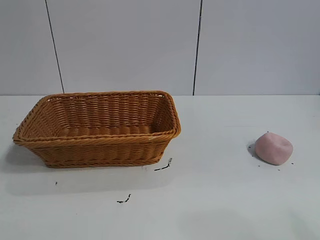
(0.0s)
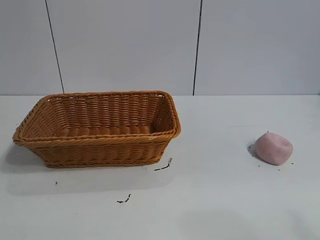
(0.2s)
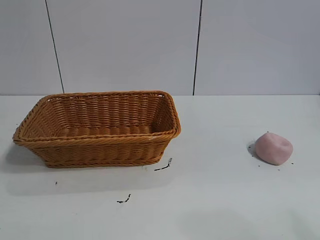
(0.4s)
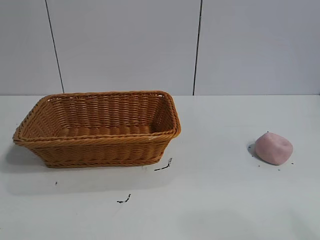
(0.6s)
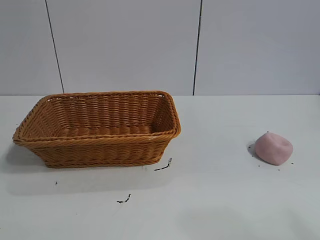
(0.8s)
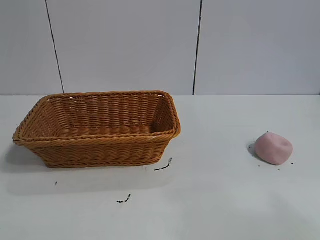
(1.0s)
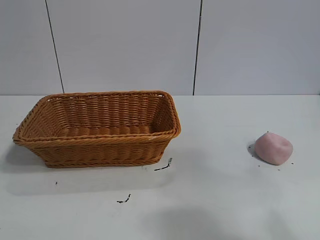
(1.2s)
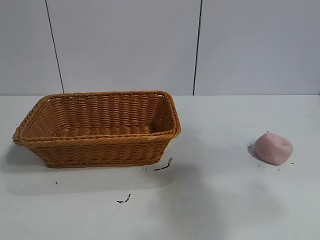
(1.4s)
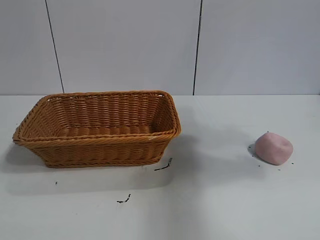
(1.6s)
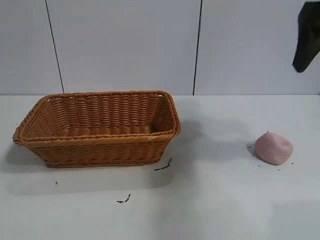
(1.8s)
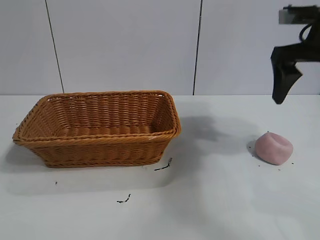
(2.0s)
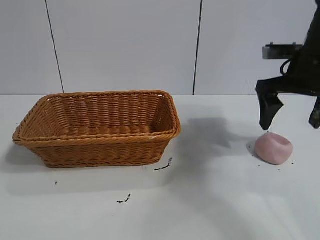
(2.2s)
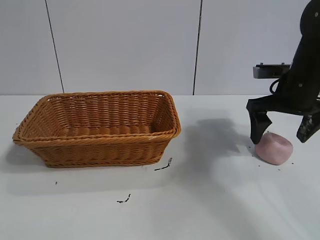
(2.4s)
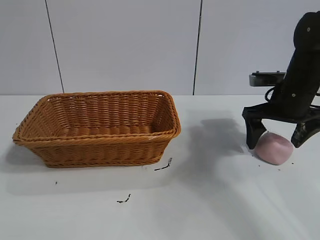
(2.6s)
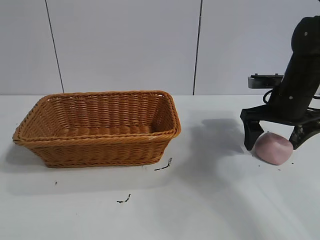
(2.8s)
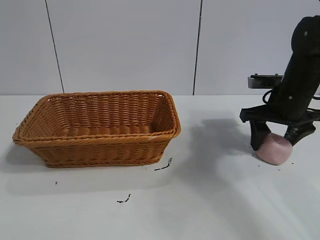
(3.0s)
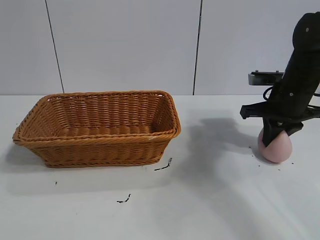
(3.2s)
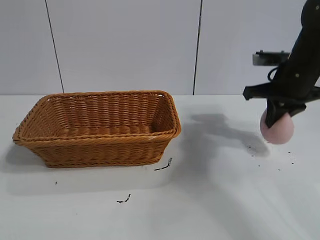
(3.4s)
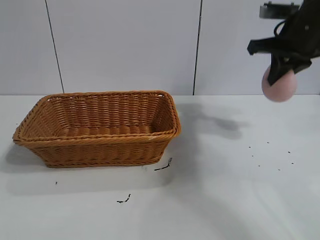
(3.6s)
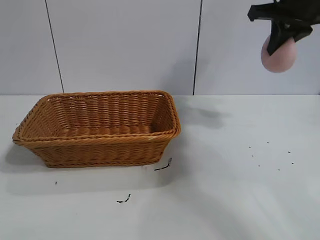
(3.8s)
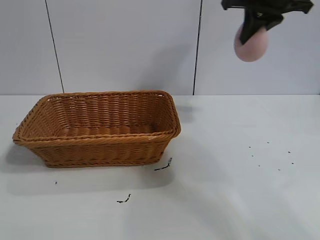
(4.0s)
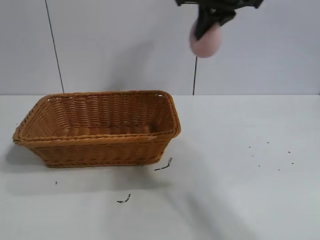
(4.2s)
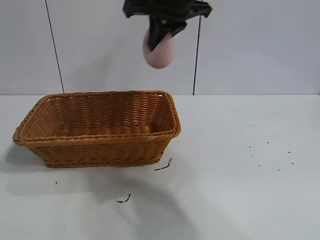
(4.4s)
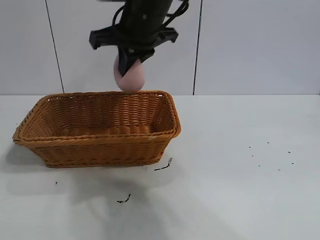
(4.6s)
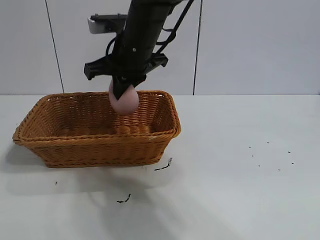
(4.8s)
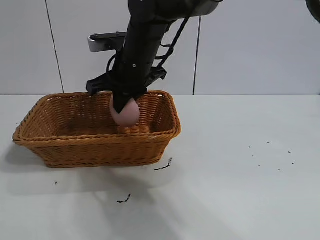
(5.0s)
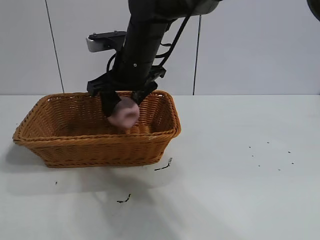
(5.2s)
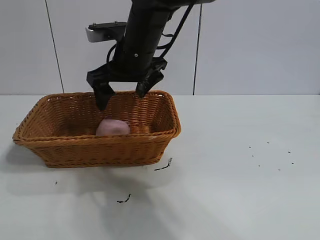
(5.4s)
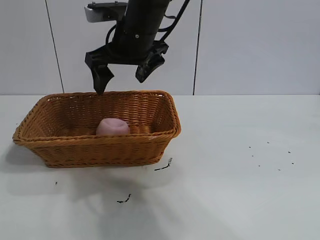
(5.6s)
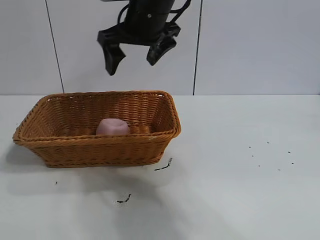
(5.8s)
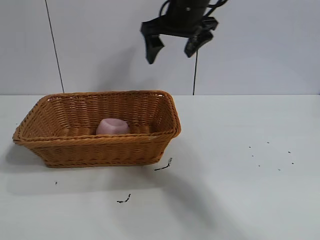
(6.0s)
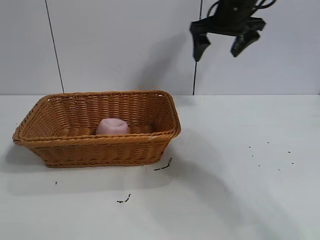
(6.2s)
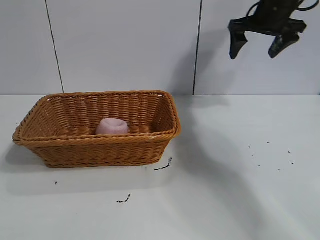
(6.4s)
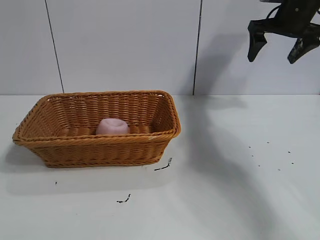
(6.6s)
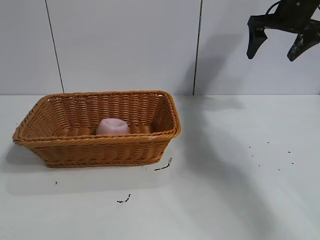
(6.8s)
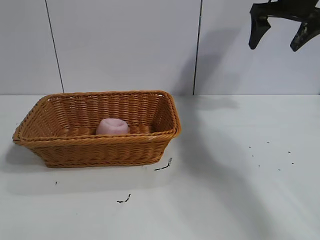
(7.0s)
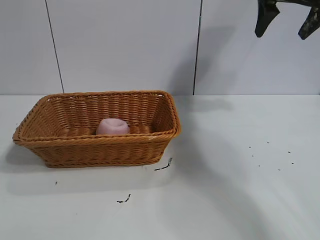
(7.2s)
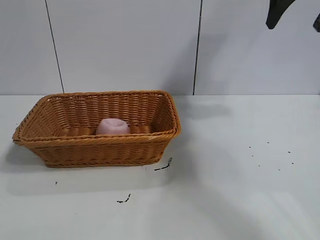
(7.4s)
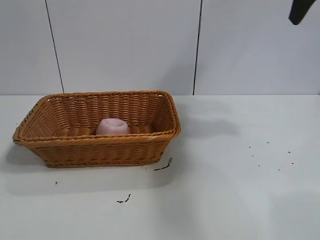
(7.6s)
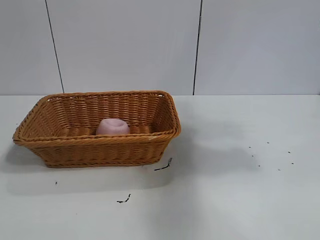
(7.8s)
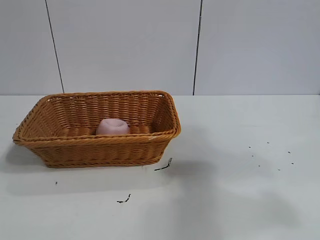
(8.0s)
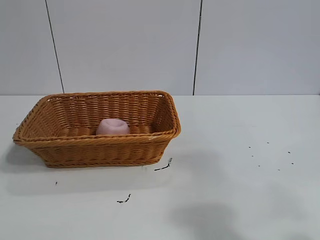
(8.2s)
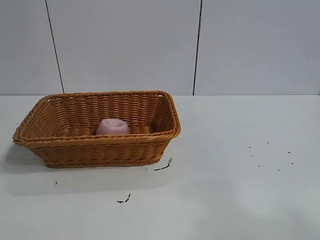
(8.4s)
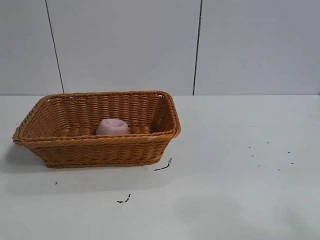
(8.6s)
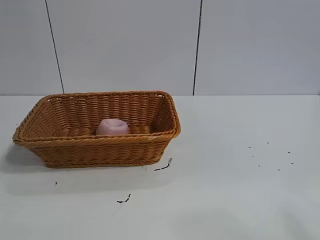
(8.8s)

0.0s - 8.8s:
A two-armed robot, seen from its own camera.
Task of the whole recording: pick up the peach and put it into the basket.
Step, 1.0s - 3.0s: Grasp the peach with right gripper.
Step, 3.4s - 5.2s: Place the peach in the basket with right gripper.

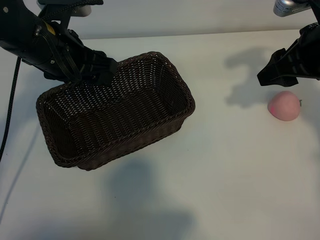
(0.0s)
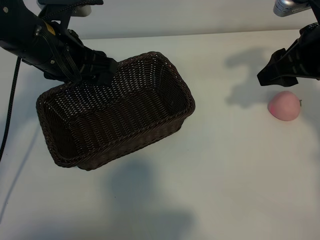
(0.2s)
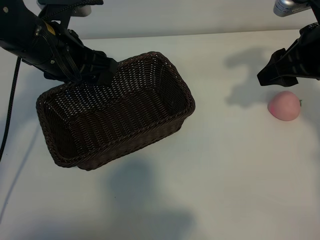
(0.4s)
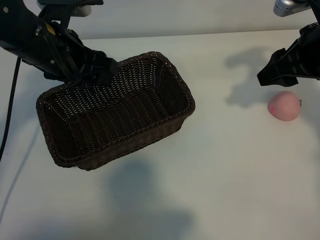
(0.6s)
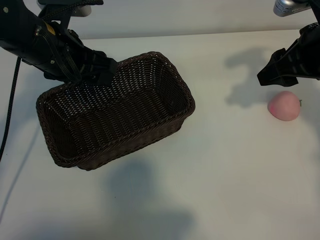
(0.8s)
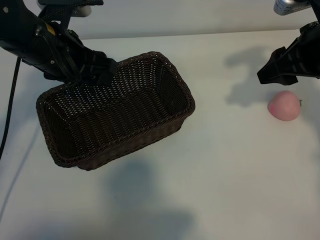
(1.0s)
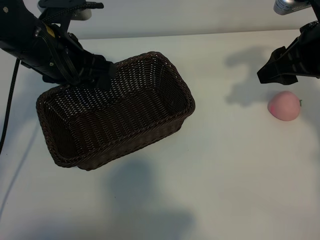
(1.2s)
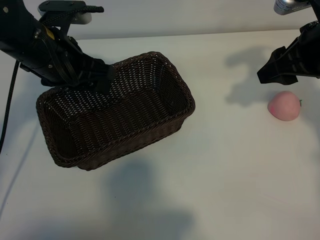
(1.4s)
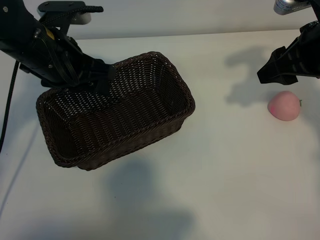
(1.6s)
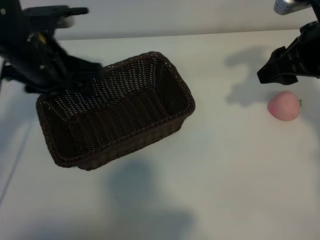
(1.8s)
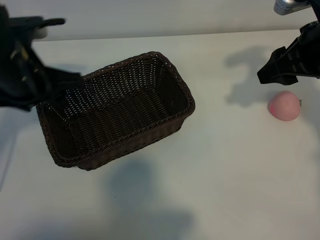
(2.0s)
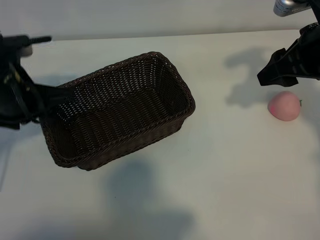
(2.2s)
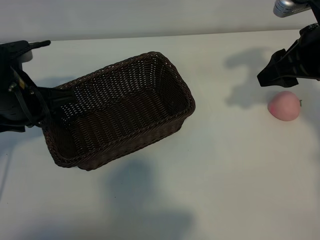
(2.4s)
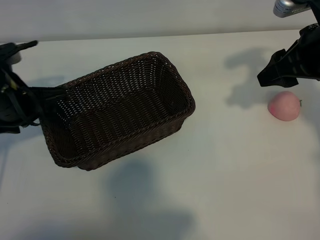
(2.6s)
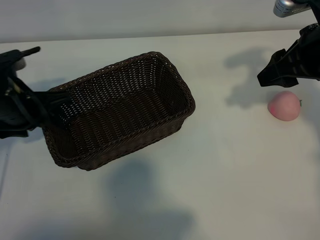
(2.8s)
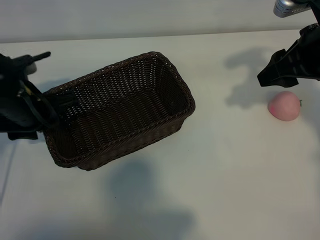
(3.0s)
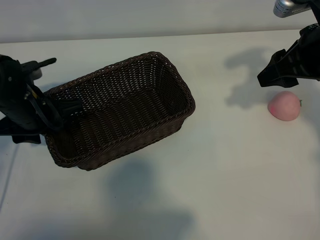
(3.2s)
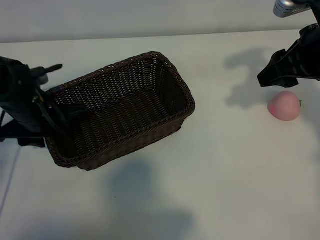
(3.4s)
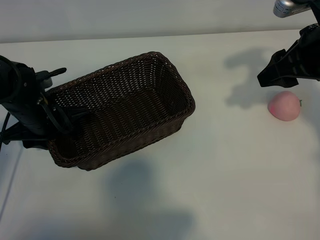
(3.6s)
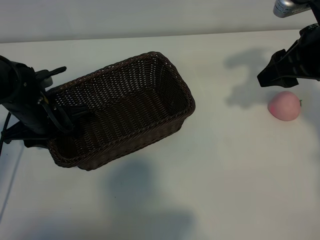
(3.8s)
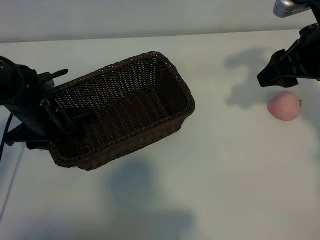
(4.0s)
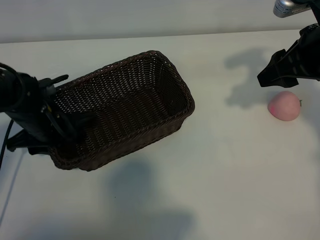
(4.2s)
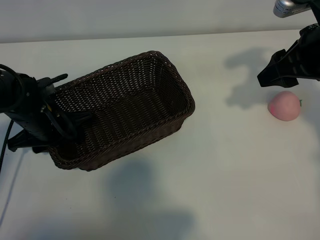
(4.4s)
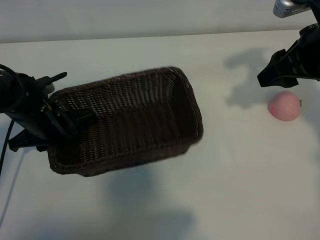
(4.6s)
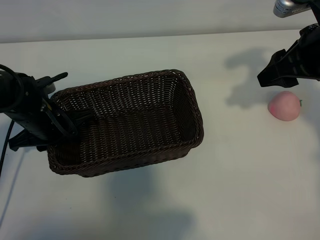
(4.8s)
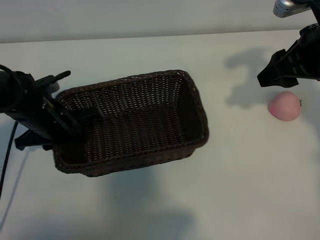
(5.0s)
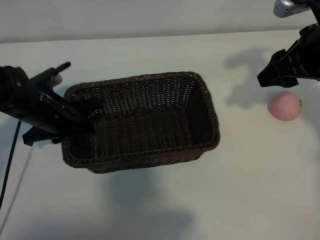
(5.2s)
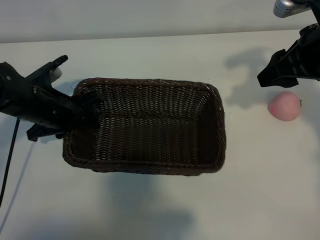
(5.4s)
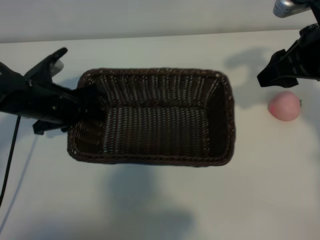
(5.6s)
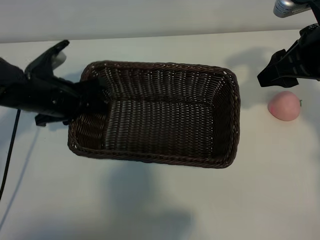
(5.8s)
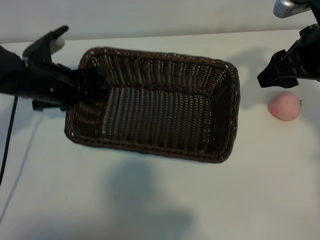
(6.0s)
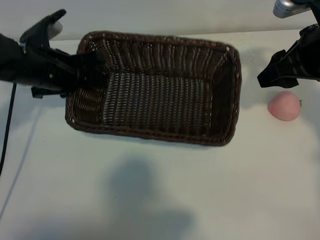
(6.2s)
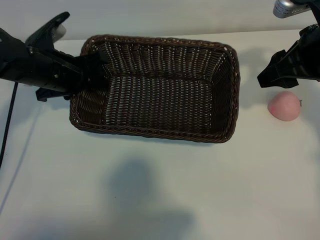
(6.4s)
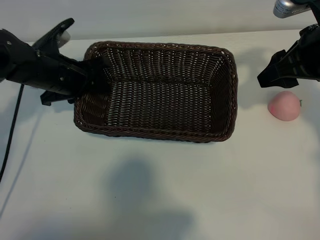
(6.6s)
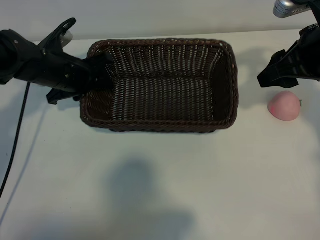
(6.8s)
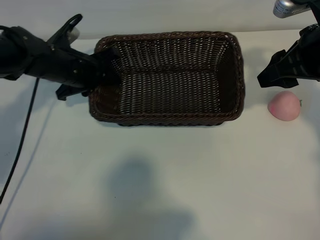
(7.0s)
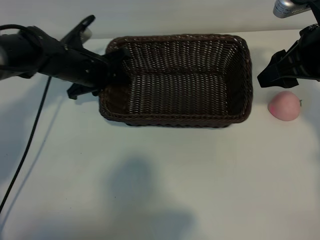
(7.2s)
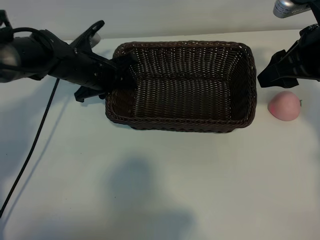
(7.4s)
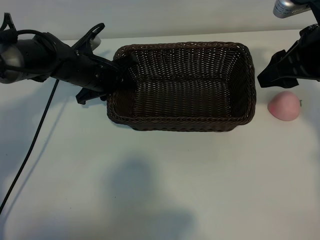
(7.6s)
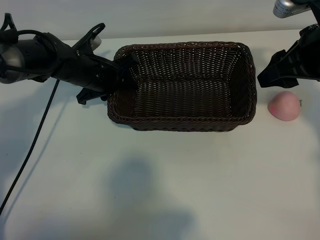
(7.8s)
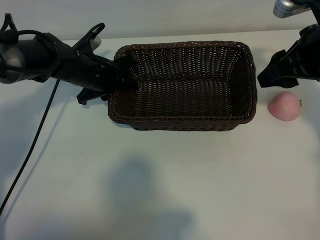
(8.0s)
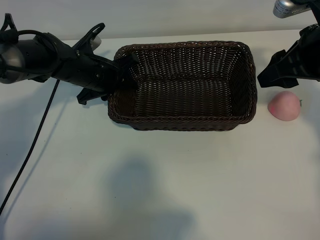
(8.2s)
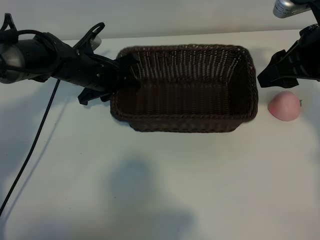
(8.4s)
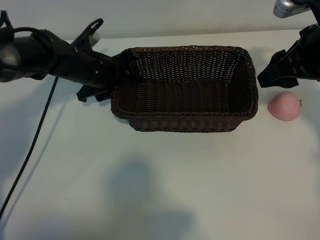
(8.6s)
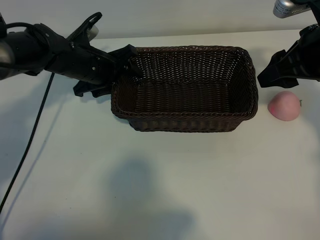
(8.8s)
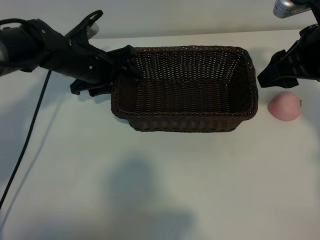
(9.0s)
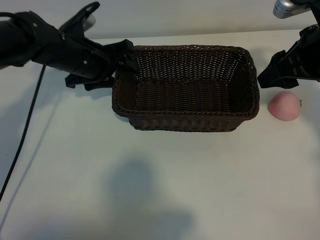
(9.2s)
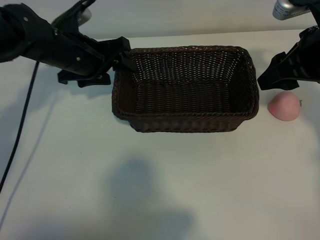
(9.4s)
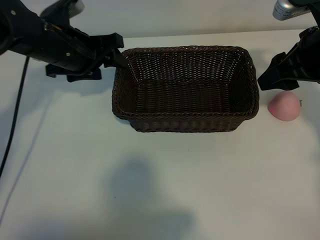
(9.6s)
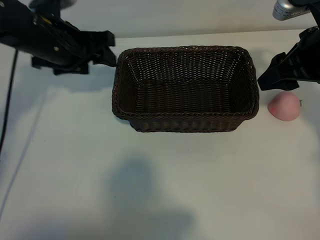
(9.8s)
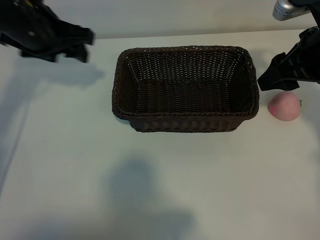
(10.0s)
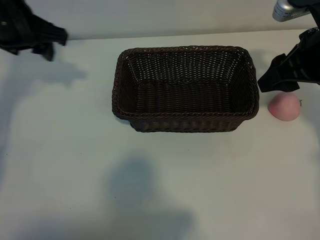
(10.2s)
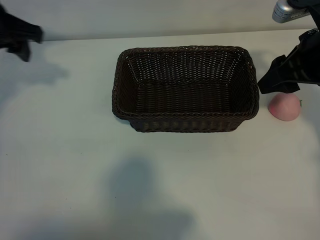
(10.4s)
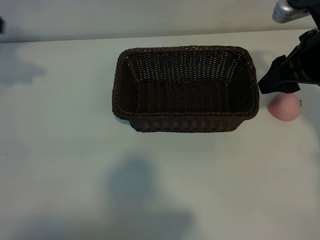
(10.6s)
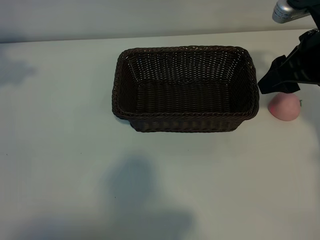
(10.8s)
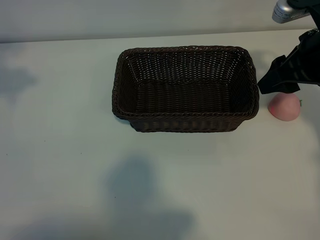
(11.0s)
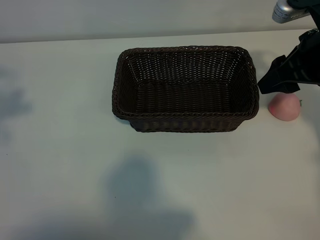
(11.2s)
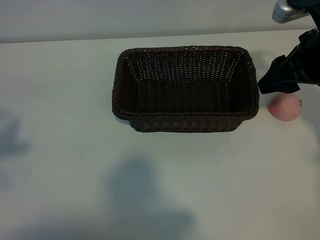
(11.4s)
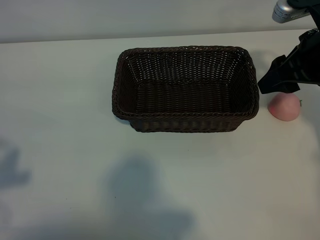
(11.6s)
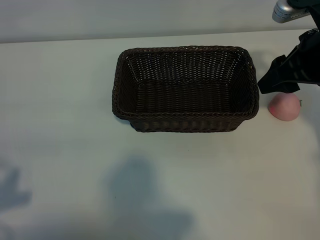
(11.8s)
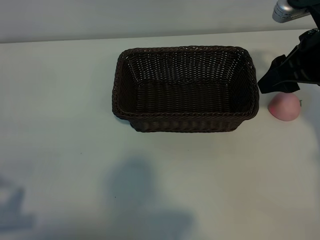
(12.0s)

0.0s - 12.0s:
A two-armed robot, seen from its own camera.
Task of the whole recording: pick up the peach and put it into the basket.
Step, 1.0s - 4.4s: Grasp the basket with left gripper.
Step, 4.6s - 9.4s: Place the basket in the center of view with left gripper.

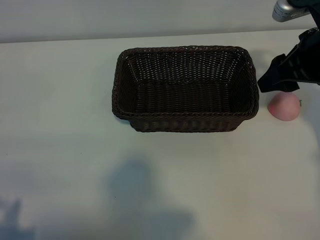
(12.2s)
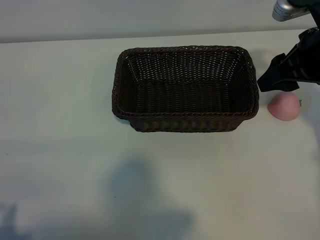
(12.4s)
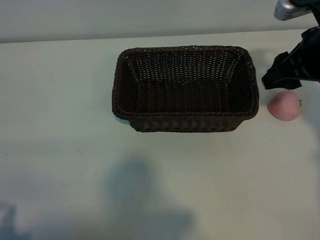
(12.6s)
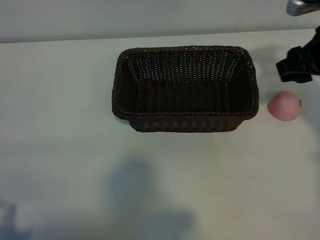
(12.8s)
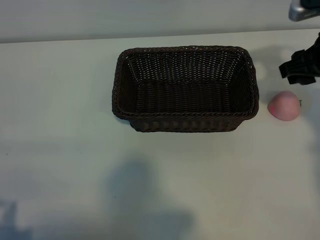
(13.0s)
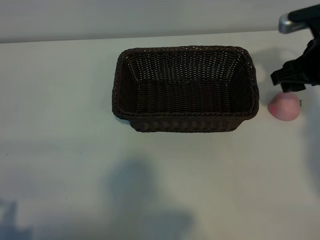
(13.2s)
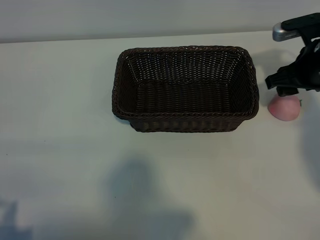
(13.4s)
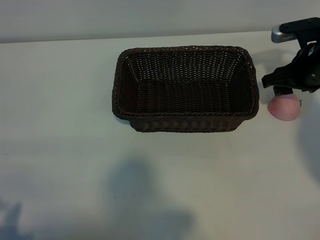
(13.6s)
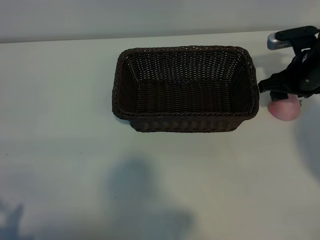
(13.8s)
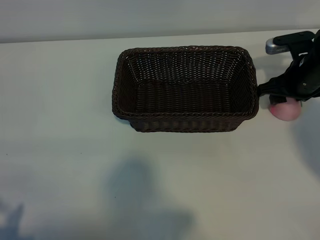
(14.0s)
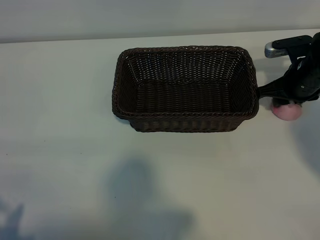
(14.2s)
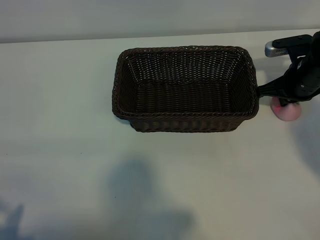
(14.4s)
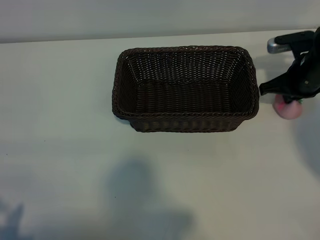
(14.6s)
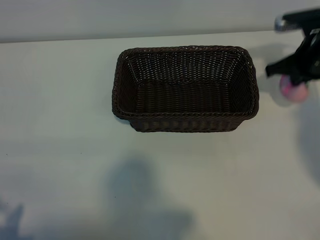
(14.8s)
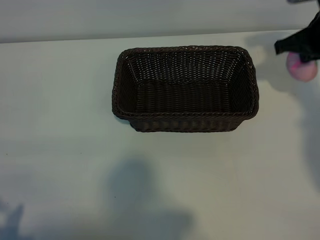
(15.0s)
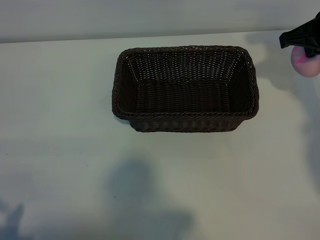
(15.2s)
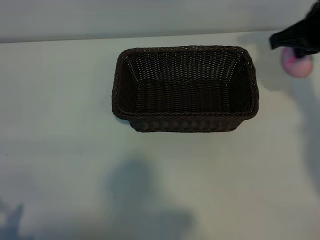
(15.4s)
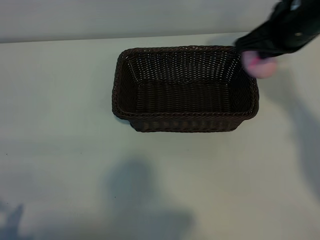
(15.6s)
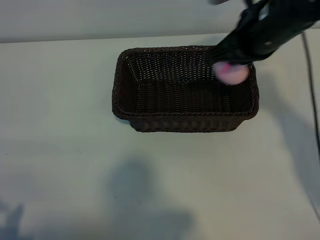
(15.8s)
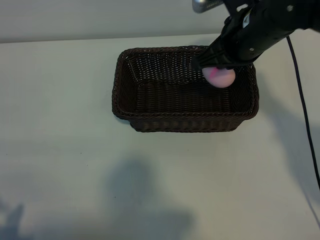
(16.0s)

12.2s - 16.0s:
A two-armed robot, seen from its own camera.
Task of the whole recording: pick up the peach and put it into the basket.
Step, 12.2s - 14.4s: Grasp the peach with right gripper.
